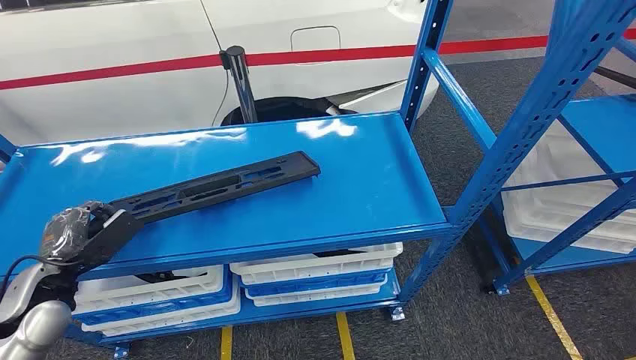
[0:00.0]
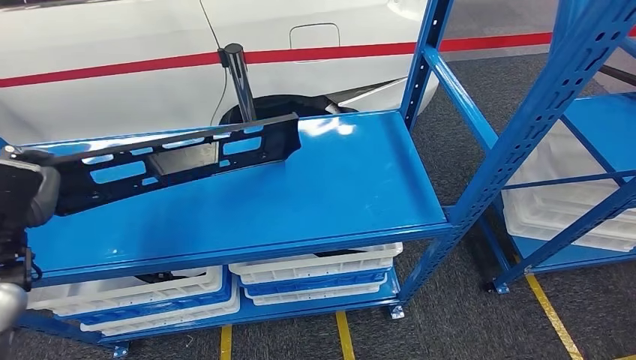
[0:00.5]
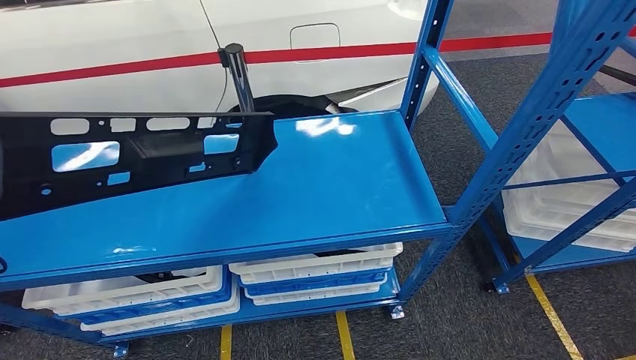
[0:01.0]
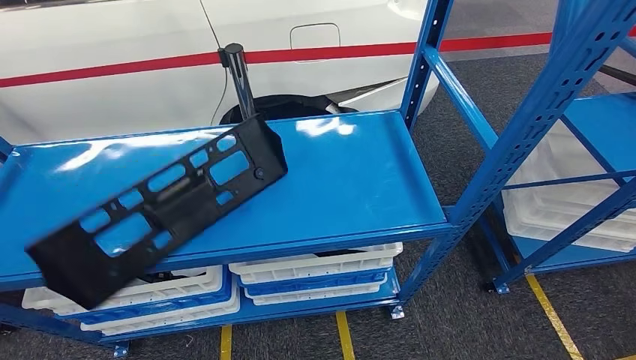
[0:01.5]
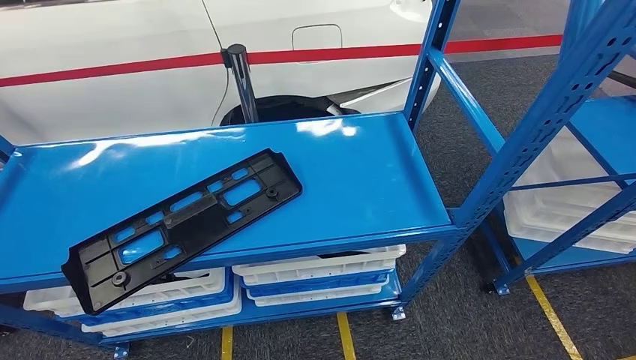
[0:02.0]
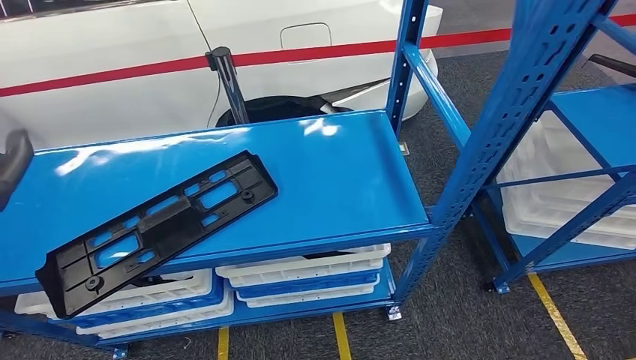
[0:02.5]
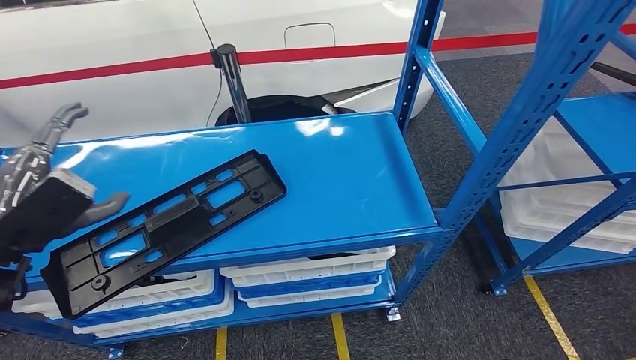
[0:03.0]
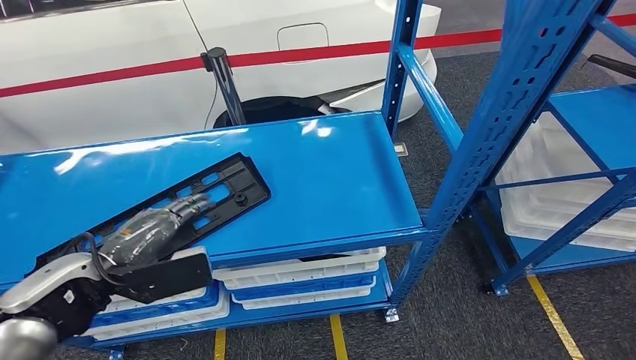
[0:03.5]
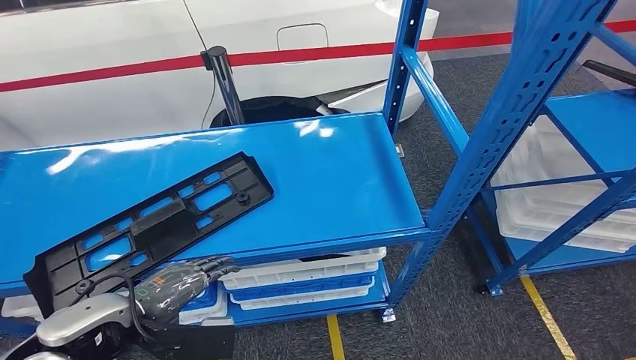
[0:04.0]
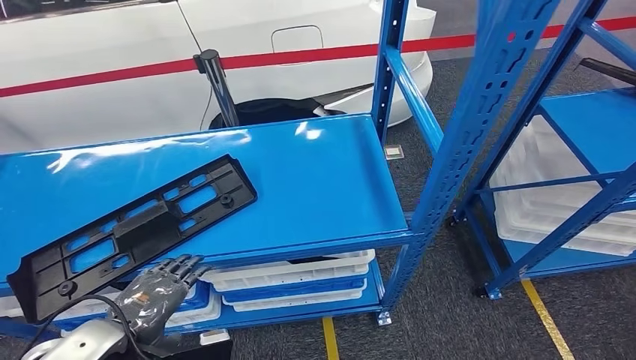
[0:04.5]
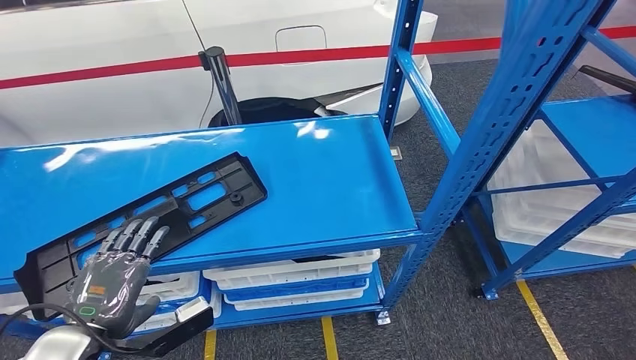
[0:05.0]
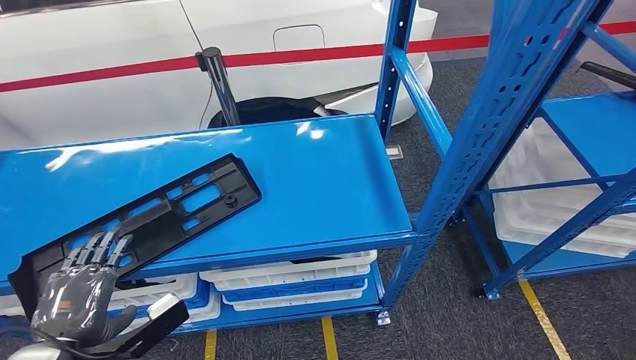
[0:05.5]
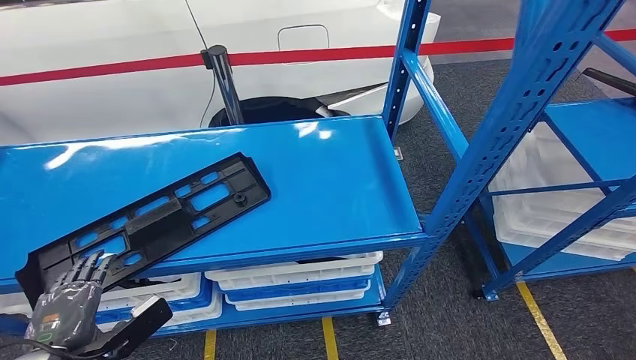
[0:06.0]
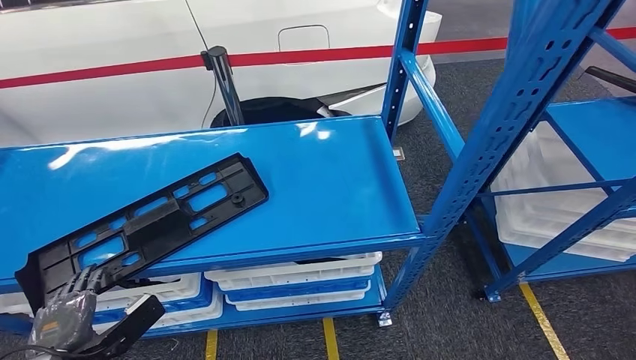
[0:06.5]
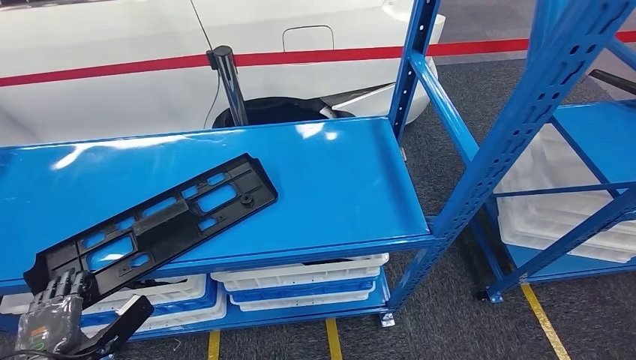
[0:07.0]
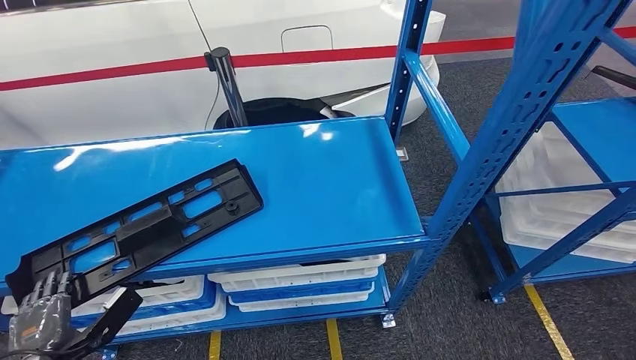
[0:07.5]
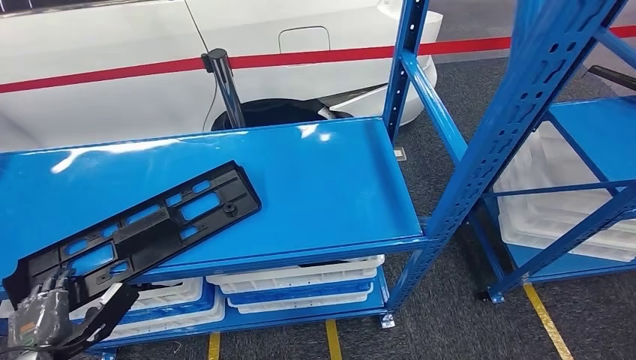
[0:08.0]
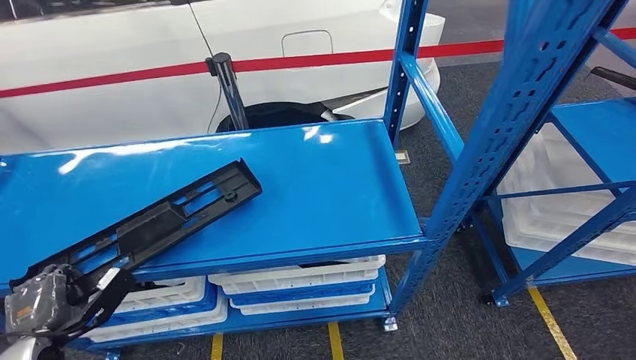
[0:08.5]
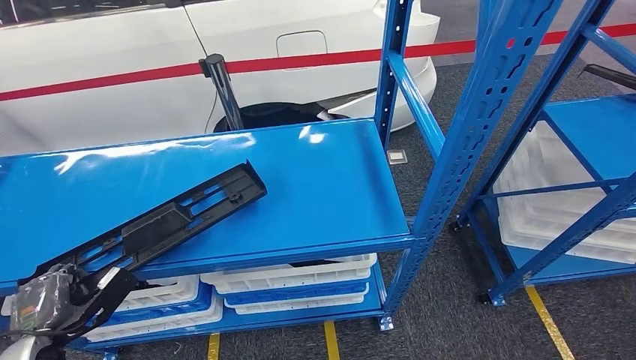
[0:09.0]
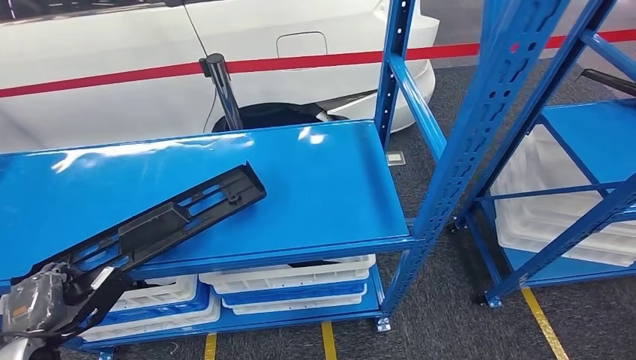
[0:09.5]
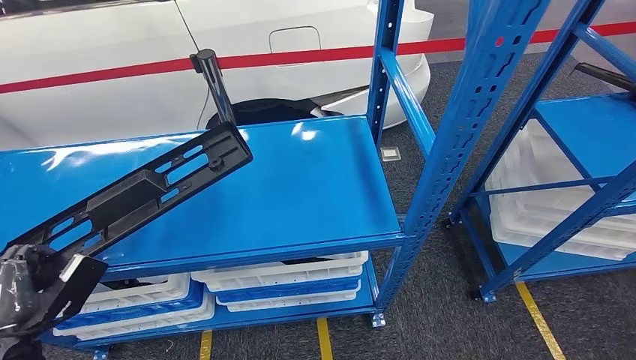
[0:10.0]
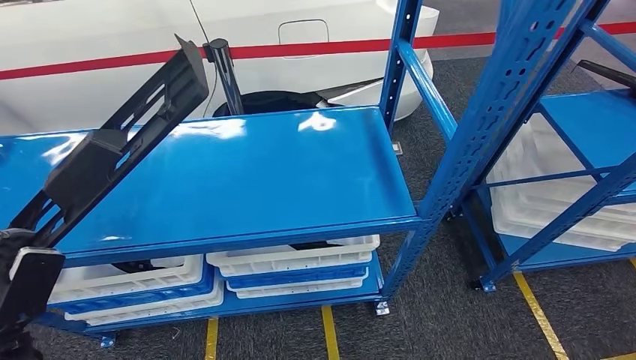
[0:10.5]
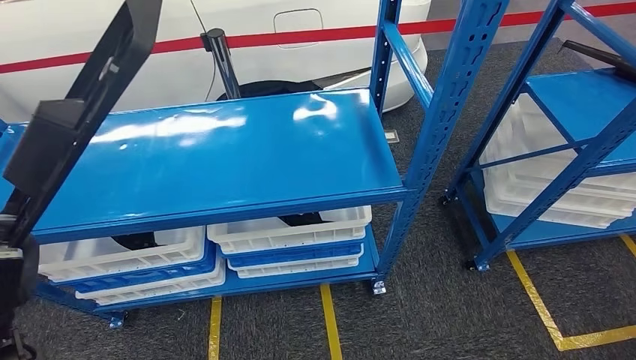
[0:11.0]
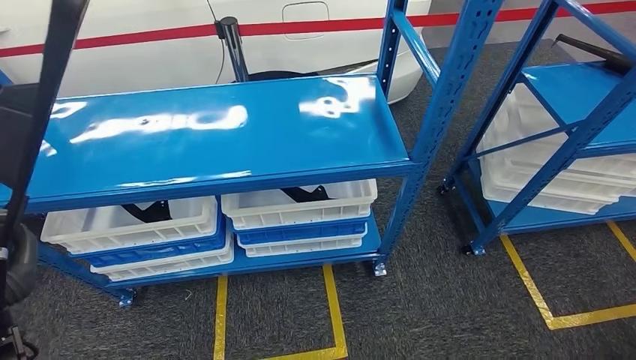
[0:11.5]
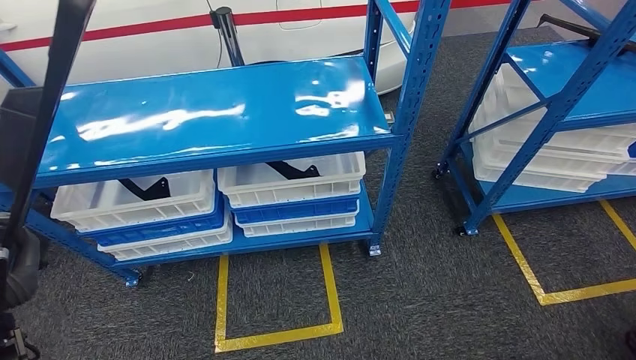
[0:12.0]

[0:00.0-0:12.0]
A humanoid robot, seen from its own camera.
Step, 0:00.0 to 0:11.0: Pick up the large material from the shelf.

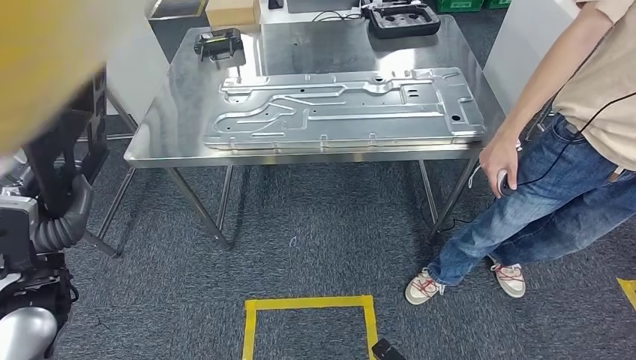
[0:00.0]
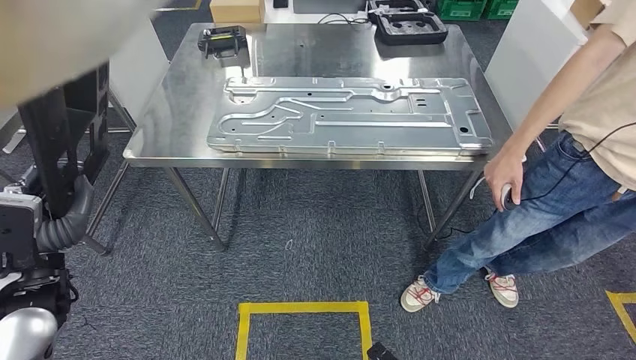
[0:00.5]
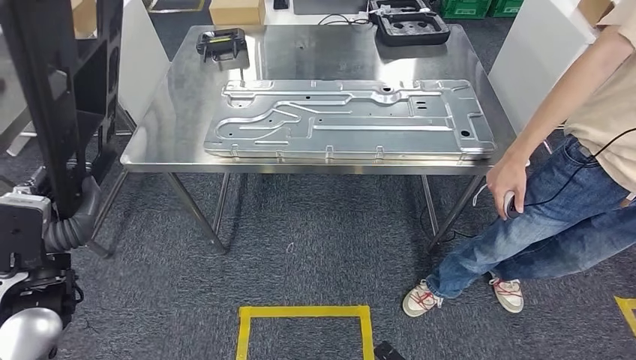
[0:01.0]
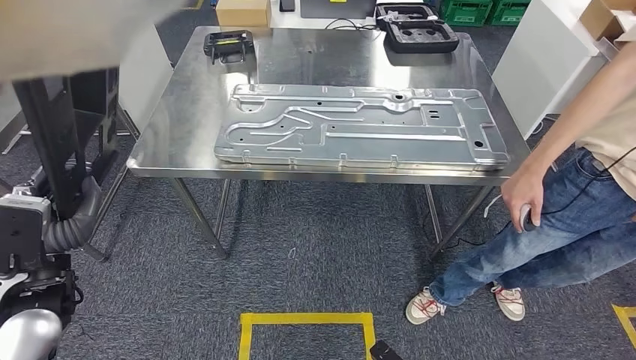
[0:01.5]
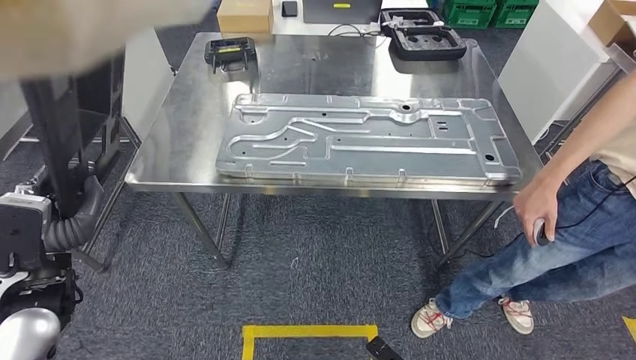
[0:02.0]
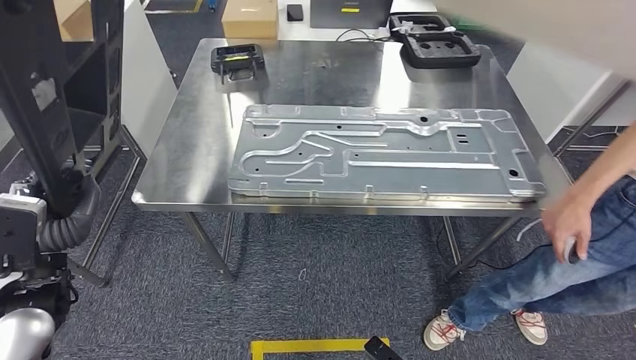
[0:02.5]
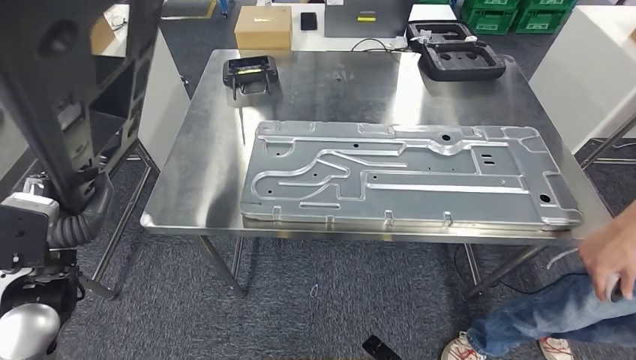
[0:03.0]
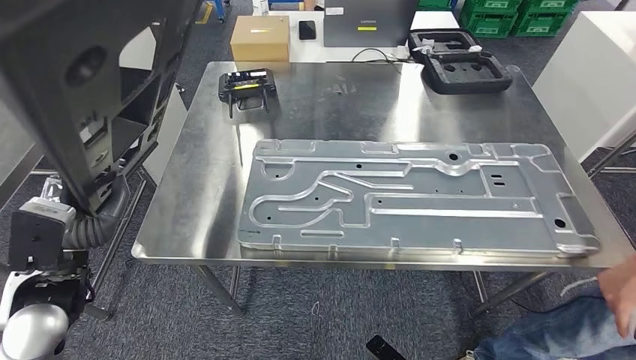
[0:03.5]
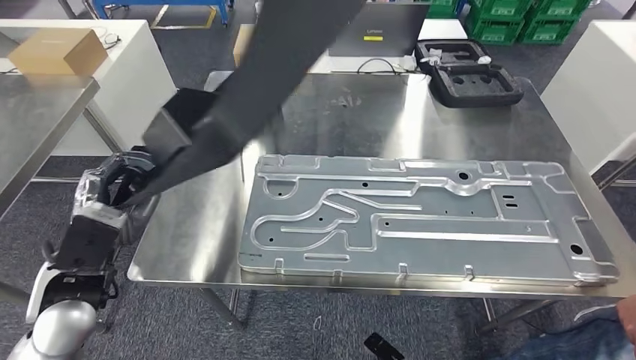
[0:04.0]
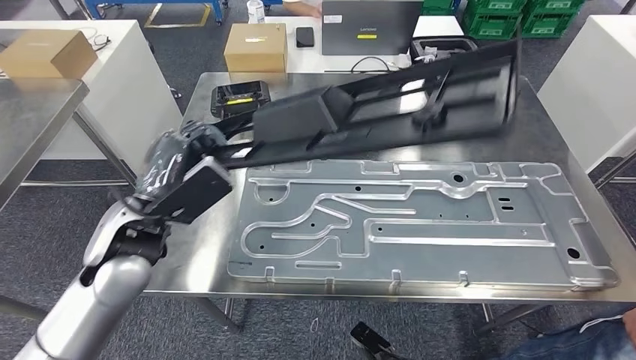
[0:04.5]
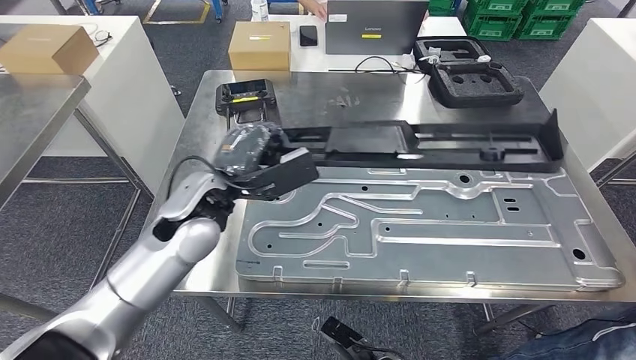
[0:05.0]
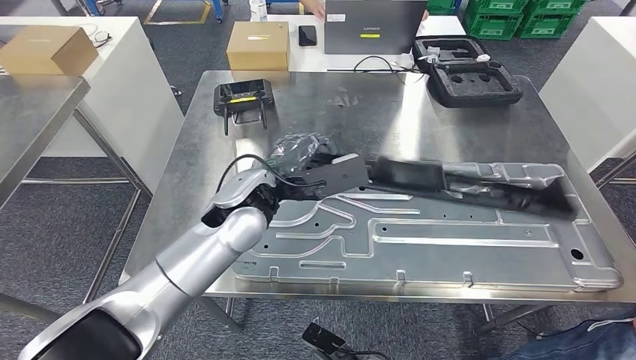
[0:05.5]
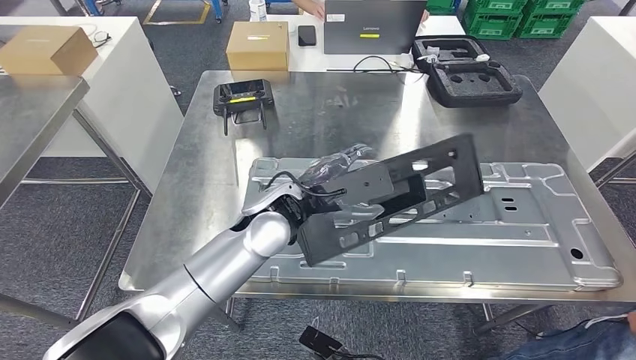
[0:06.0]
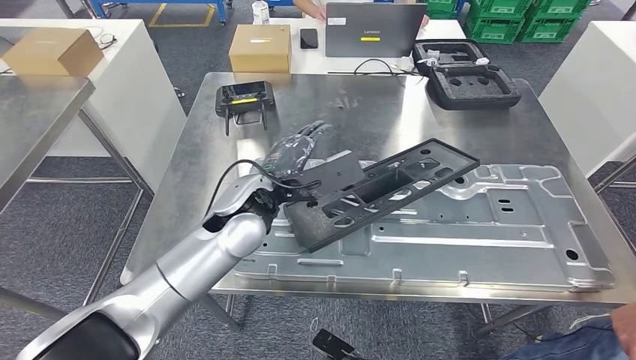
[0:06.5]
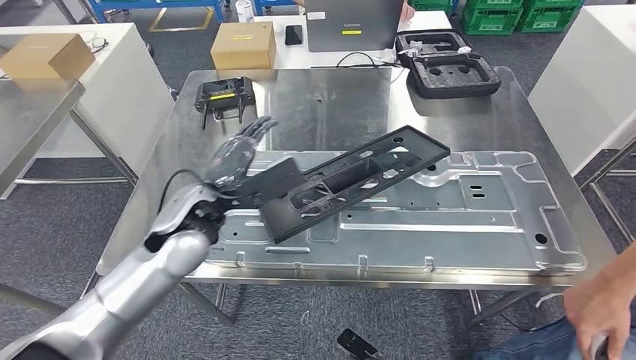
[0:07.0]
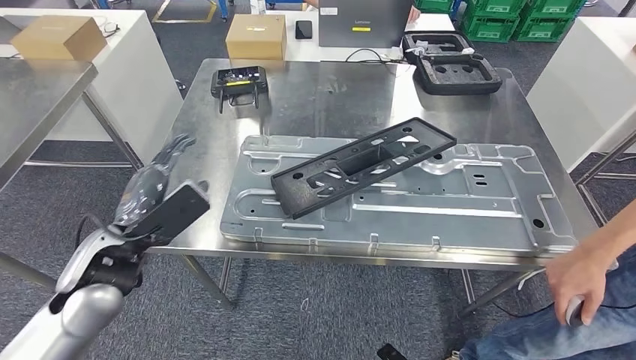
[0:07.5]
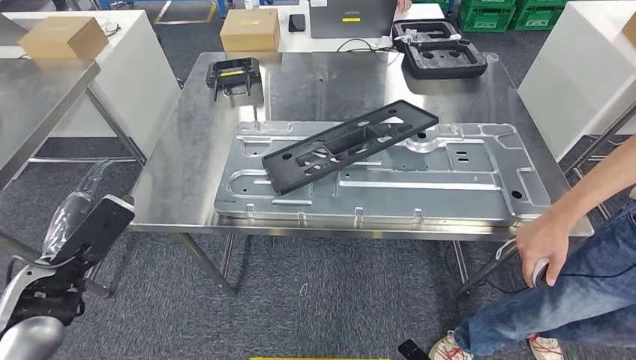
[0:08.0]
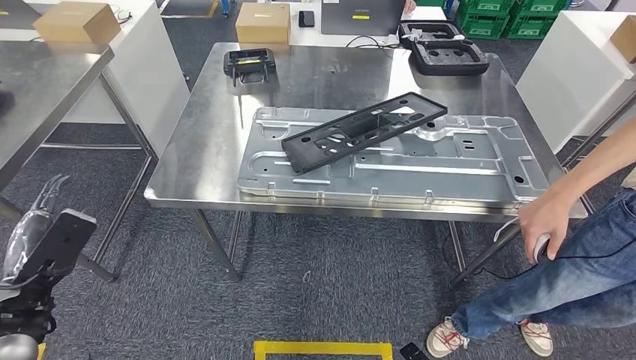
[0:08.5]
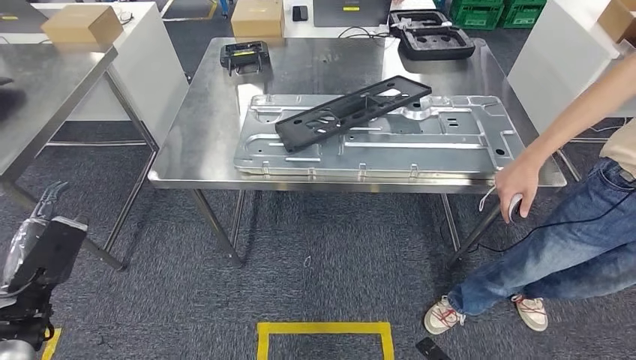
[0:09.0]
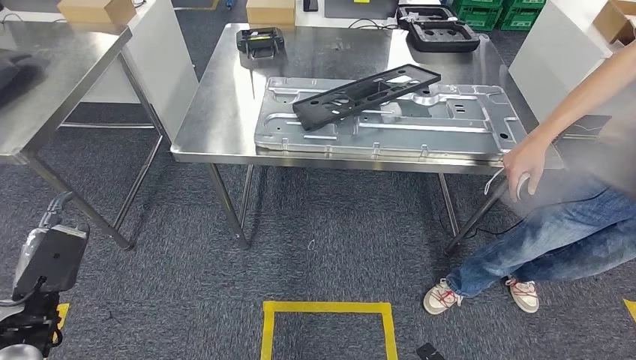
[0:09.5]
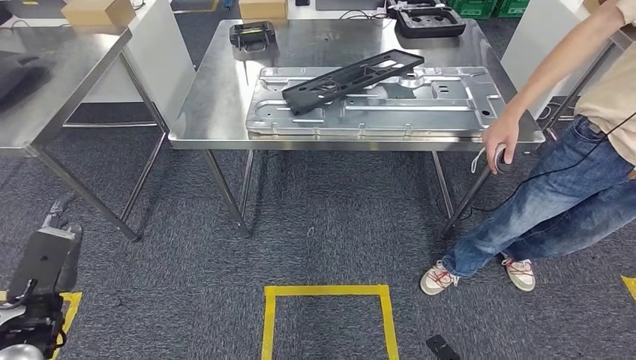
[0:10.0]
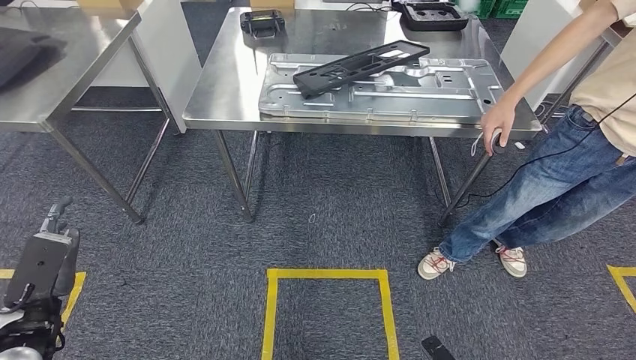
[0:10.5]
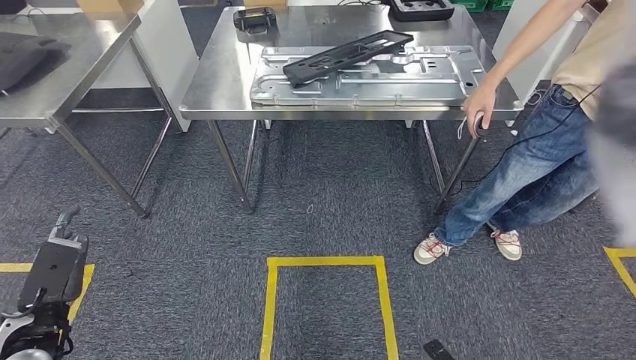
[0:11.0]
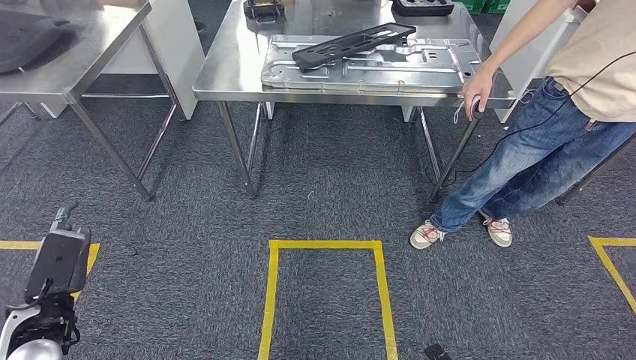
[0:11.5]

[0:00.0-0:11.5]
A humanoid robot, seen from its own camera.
Step, 0:00.0 to 0:04.0: Move the large material to the workbench.
Step, 0:05.0 to 0:09.0: Insert the large material into the corresponding slot on the workbench.
